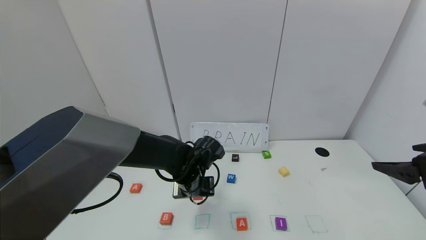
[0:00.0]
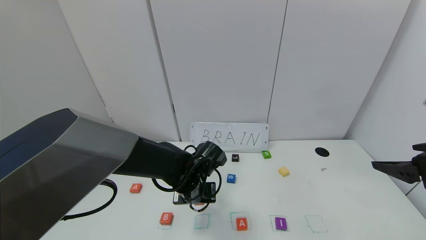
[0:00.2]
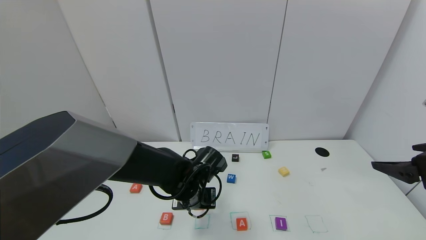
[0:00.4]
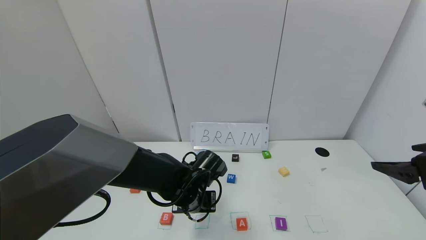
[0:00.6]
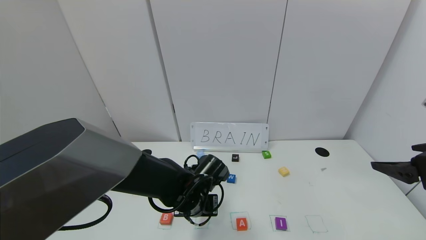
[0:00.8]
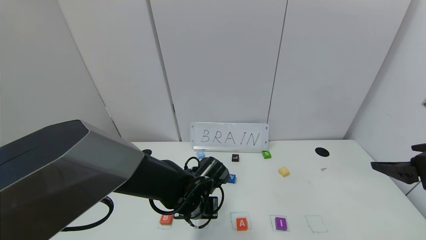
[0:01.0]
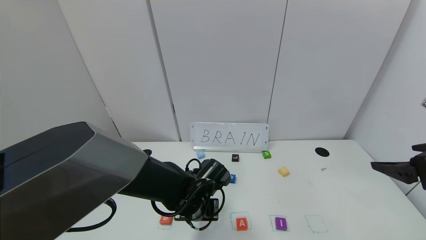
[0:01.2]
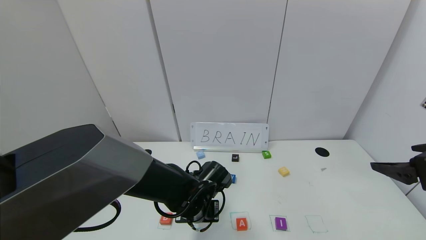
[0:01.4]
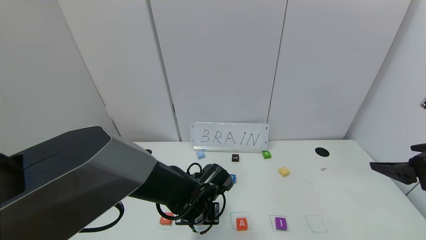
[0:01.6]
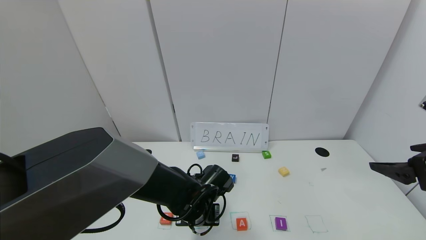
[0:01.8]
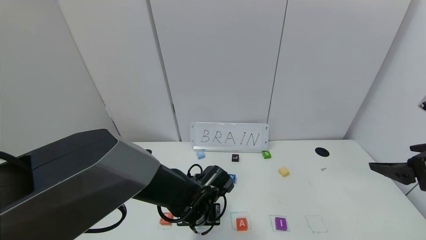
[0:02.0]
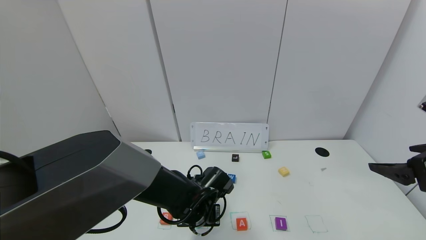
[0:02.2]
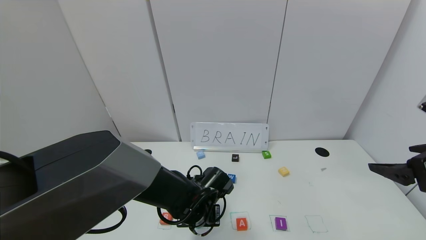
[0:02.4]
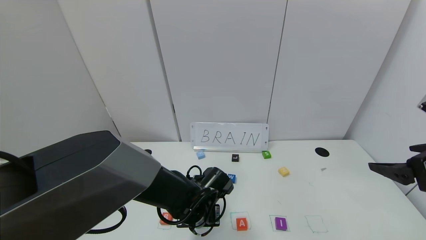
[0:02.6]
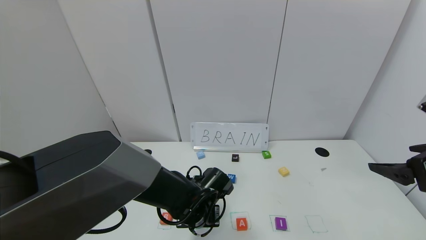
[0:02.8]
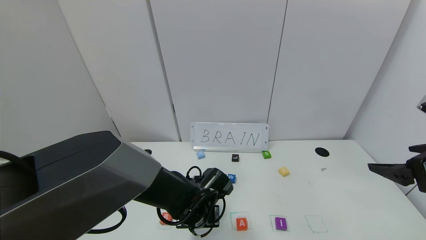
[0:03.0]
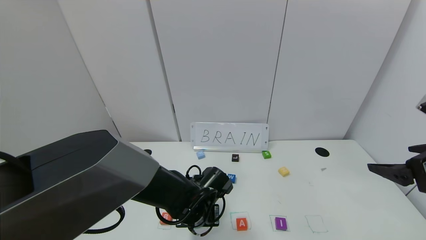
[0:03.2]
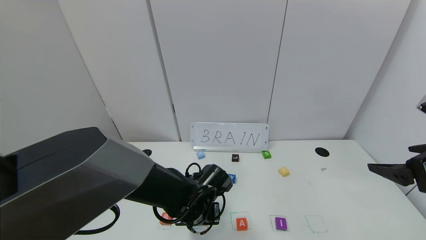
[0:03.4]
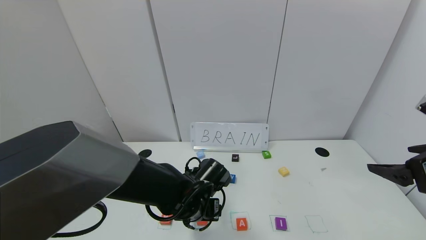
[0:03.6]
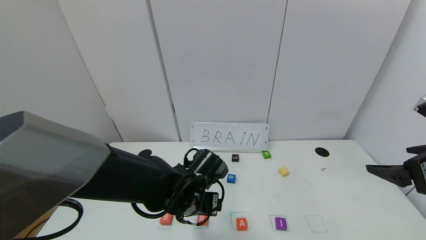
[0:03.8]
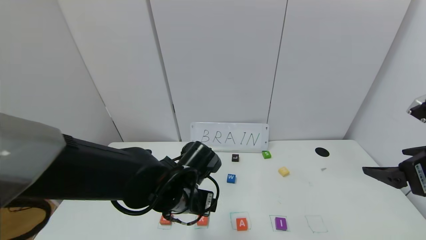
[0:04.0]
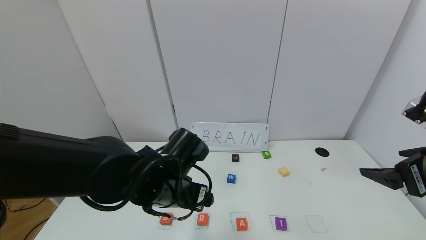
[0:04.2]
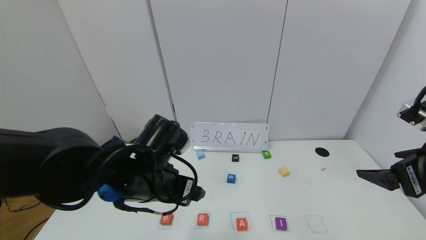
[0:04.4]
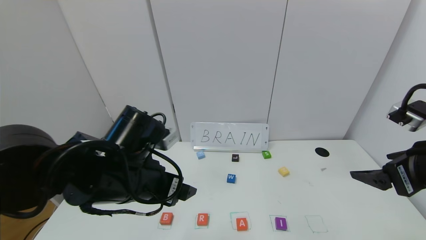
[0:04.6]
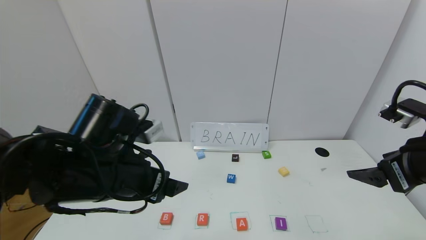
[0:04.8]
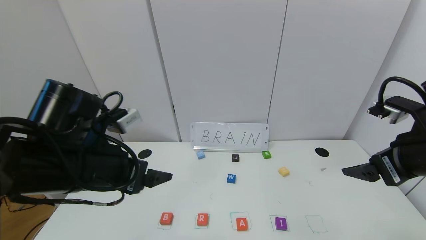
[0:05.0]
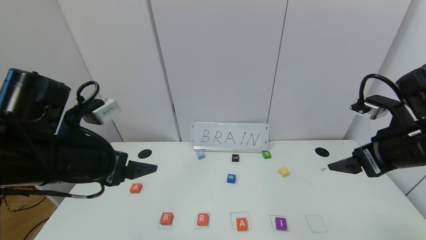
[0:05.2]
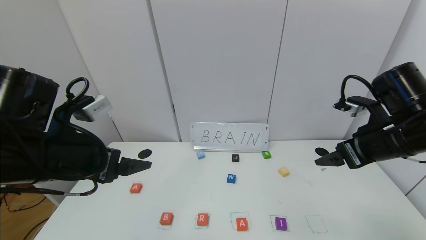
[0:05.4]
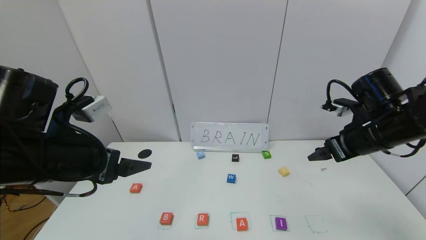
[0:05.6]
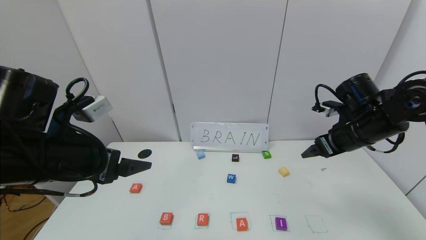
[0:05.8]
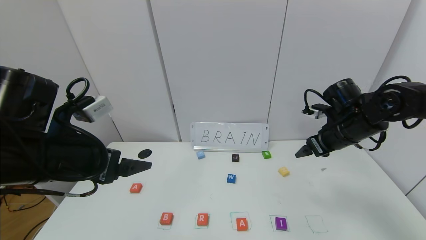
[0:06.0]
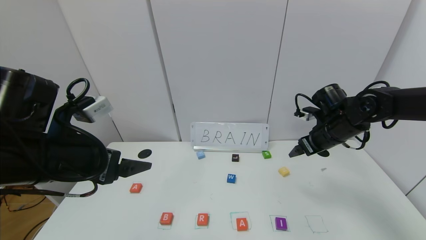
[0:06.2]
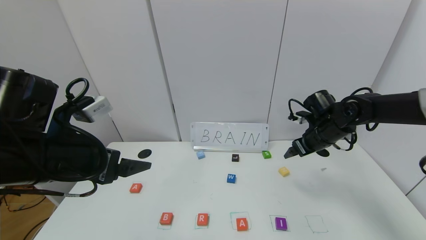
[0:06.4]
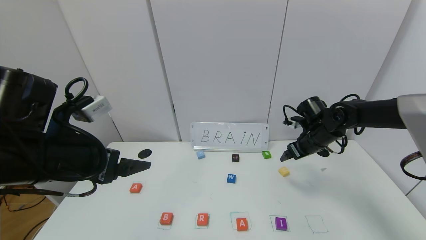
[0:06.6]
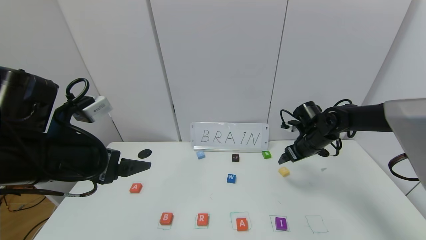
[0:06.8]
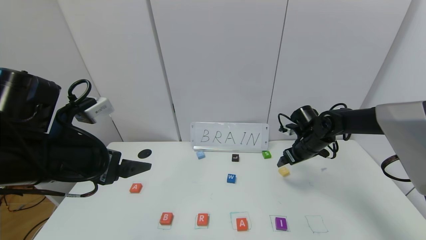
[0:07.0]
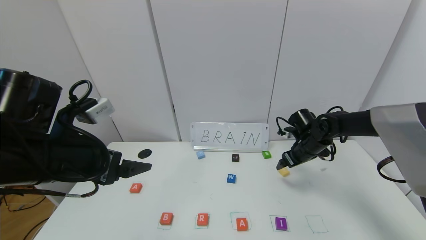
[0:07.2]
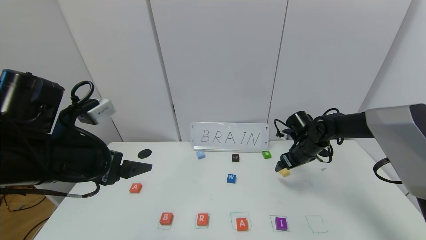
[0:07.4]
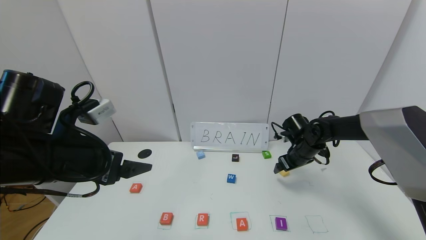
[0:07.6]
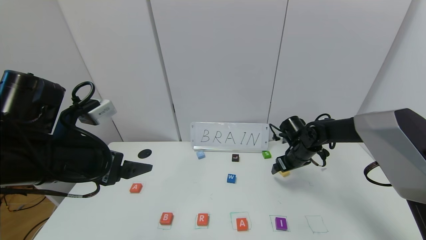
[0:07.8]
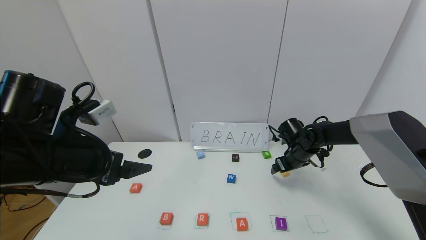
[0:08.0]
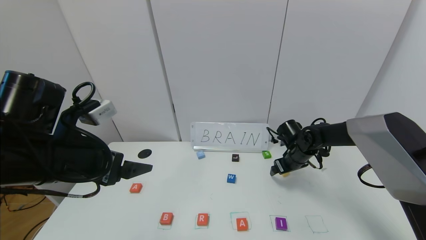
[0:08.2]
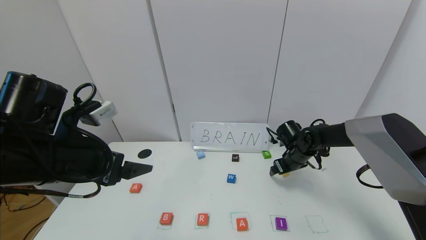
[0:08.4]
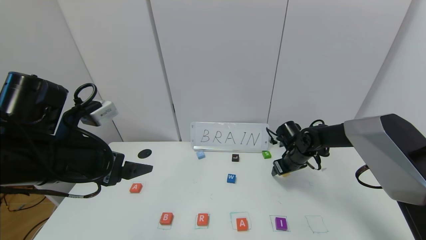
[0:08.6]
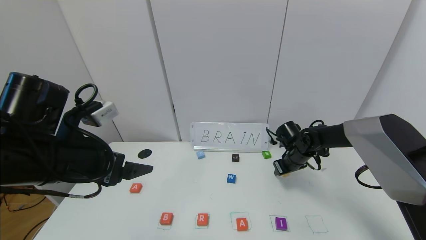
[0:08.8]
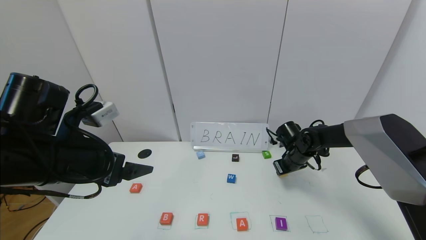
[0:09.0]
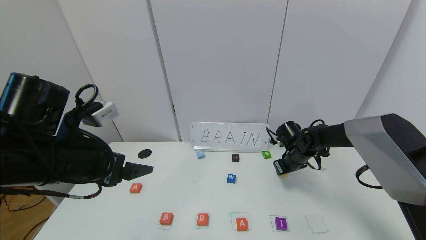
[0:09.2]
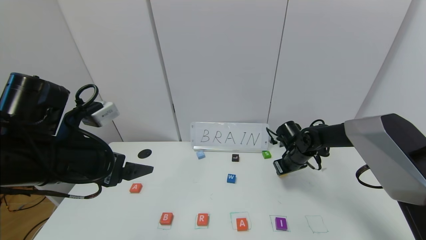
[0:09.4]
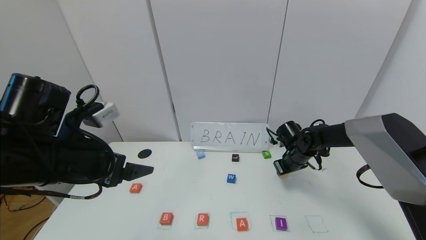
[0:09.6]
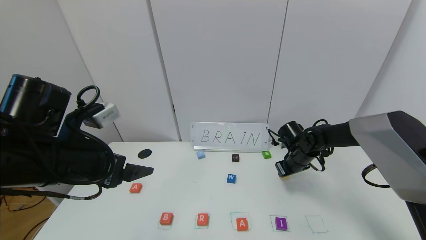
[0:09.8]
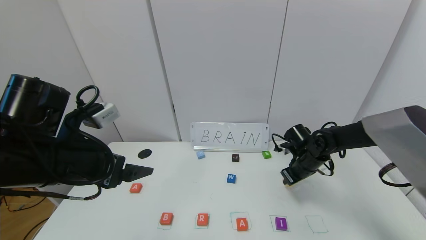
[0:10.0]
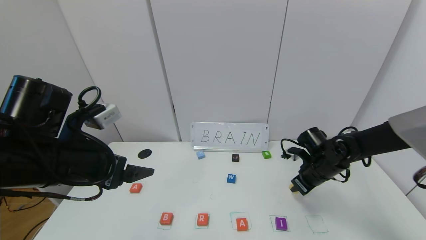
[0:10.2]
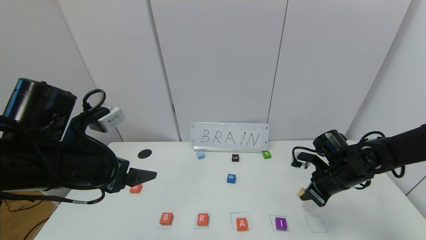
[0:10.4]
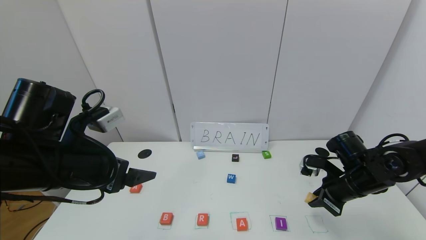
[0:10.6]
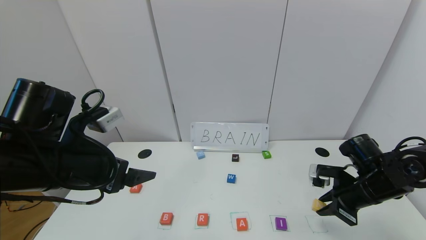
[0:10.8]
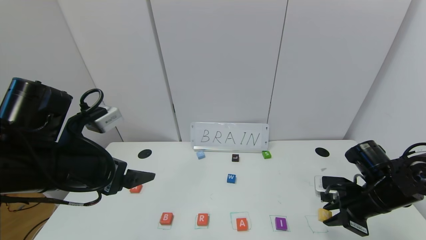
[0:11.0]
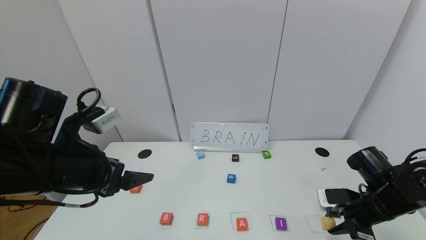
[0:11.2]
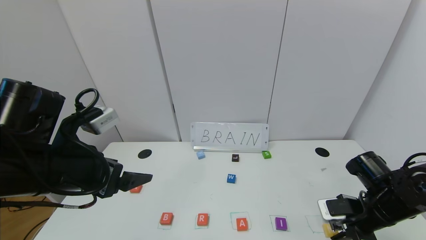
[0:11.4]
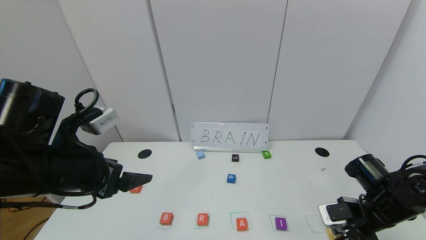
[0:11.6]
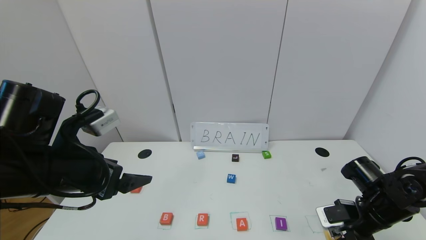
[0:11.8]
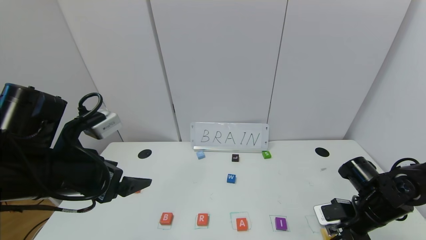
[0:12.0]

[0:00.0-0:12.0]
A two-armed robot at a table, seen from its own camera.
Task of the whole recording: use the gripper to find blocks with the letters b, a, a, and i on the table and arrange them into BAAI, then find r and N and turn the arranged baai into brian.
Step, 0:00.0 to 0:03.2: Place the block R in the second location.
0:00.0 to 0:01.6: The left gripper moves approximately 5 cm.
0:01.6 to 0:03.0: The left gripper opens.
0:03.0 to 0:04.4: The left gripper is displaced upward and to the left by roughly 15 cm, and opens its fingers.
0:04.4 to 0:06.0: The right gripper shifts roughly 20 cm forward. The left gripper travels to the left and upward by some 15 cm.
0:06.0 to 0:07.6: The right gripper travels downward and forward by about 15 cm.
0:07.6 to 0:09.0: The right gripper closes its fingers.
0:09.0 to 0:10.4: The right gripper is displaced backward and to the right by roughly 15 cm.
0:10.4 to 0:12.0: The right gripper shifts roughly 5 cm backward.

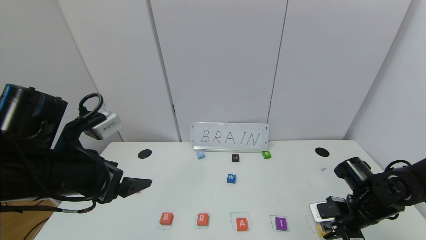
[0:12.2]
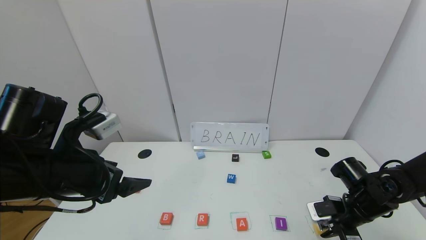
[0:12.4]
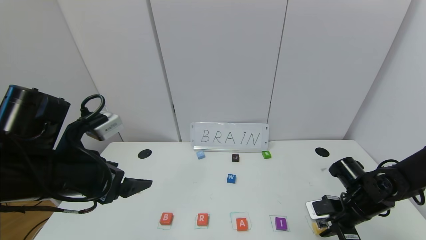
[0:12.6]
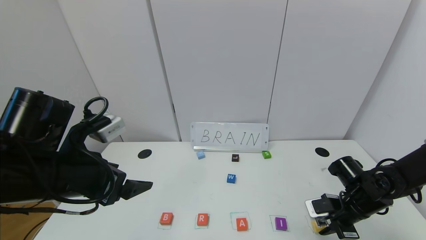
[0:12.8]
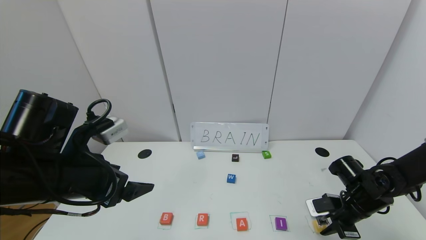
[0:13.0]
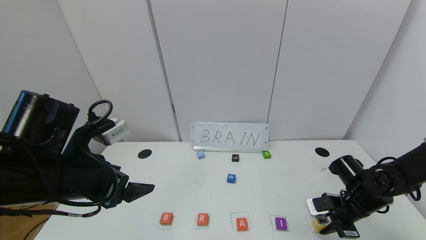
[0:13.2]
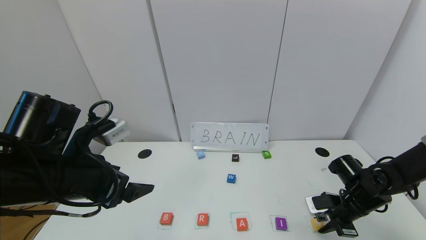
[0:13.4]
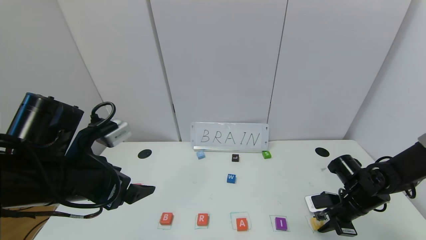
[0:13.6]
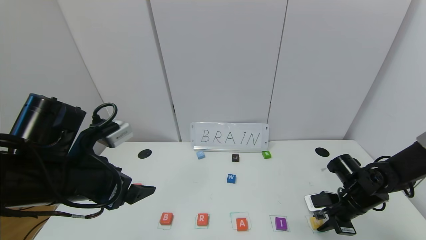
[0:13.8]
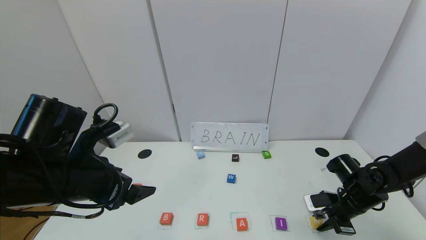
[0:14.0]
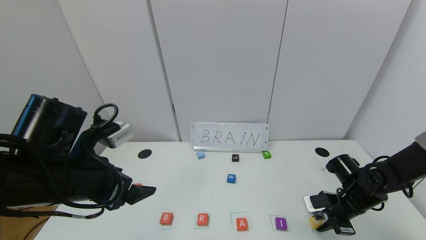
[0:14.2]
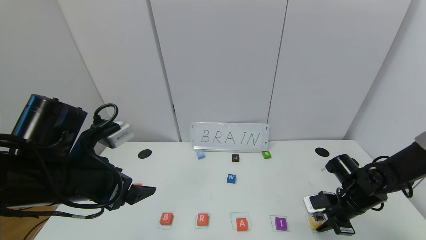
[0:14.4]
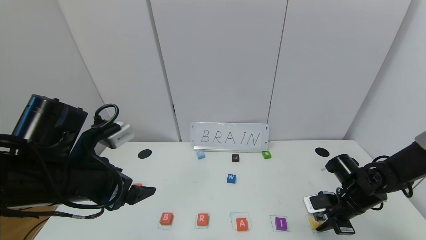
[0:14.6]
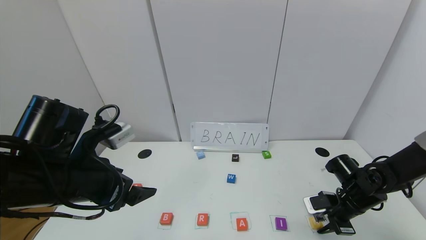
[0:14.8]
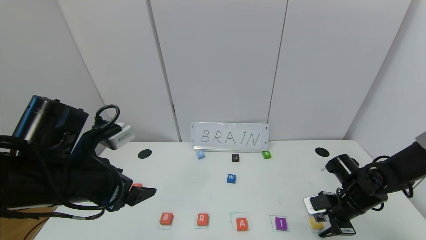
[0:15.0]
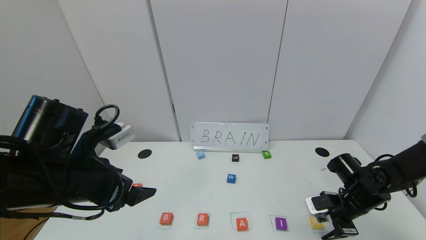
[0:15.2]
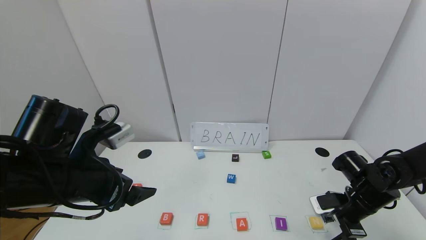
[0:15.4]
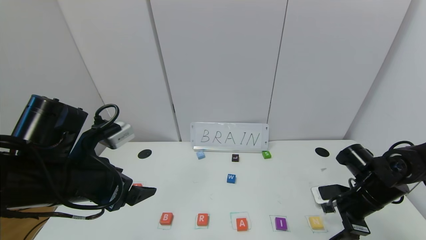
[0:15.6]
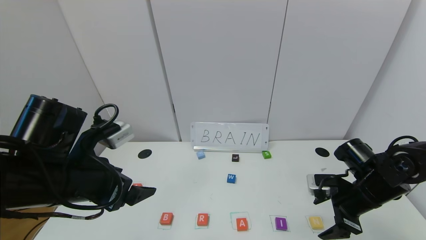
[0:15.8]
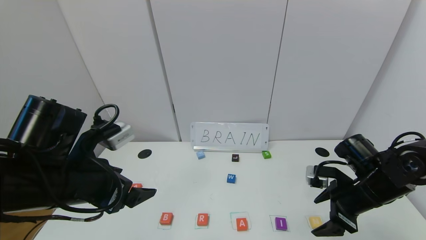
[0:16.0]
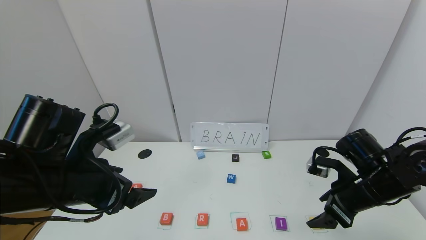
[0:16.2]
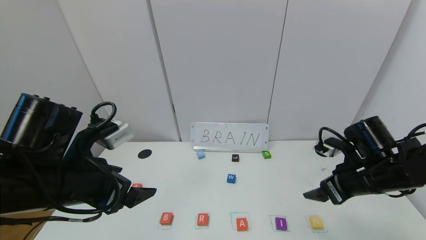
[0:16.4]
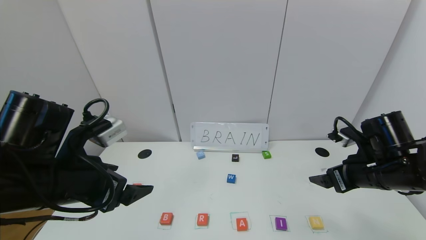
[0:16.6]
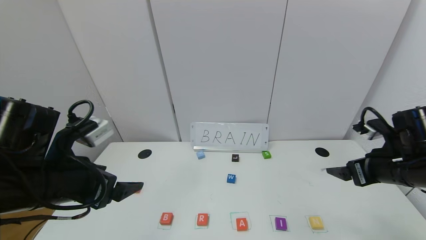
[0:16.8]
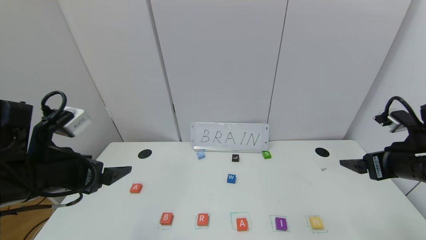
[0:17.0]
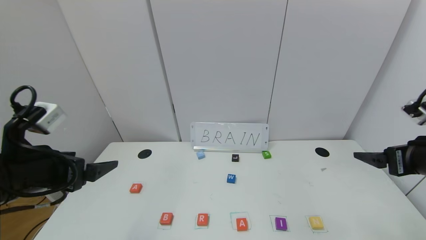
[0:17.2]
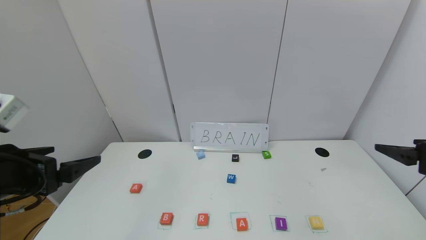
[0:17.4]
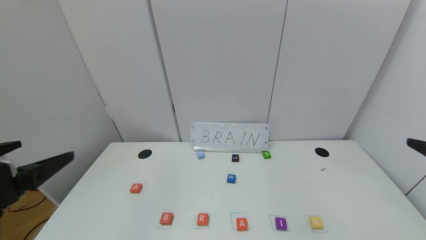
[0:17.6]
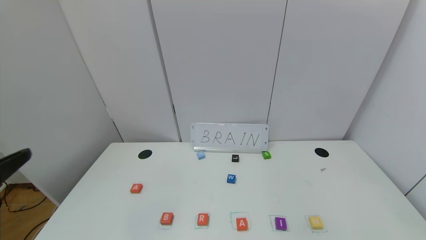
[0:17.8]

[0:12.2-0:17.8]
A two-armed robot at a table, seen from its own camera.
Task of the whole recording: use the gripper to find blocks with the letters b, a, a, and i on the table and arrange them into BAAI, then find r and N and turn the arranged baai into brian.
Step, 0:12.2 to 0:15.4: Place the block N in the fifth location.
0:12.2 to 0:13.6: There are only small adjustments of the grippers.
0:13.6 to 0:15.0: The right gripper opens up.
0:15.0 to 0:16.4: The right gripper moves upward, some 10 cm, and opens up.
0:16.4 to 0:17.8: The right gripper shifts some 25 cm backward, upward and to the right; the left gripper moves backward, to the left and upward, approximately 15 cm.
